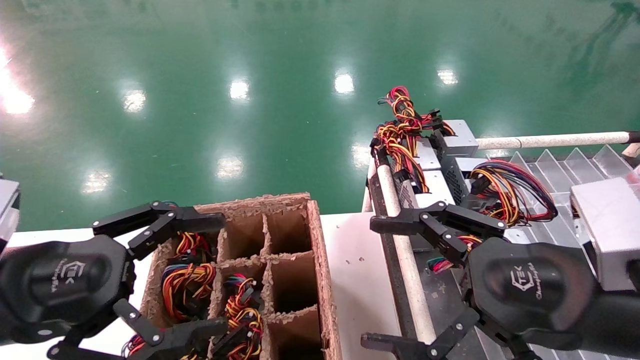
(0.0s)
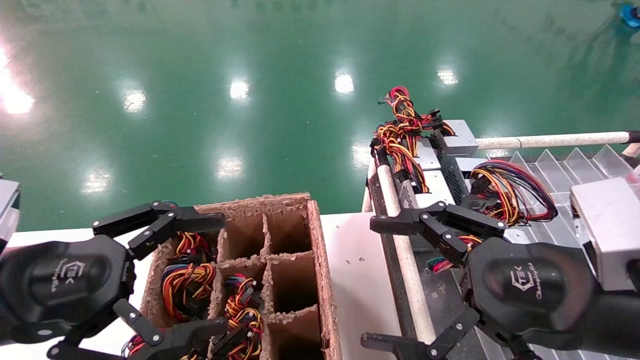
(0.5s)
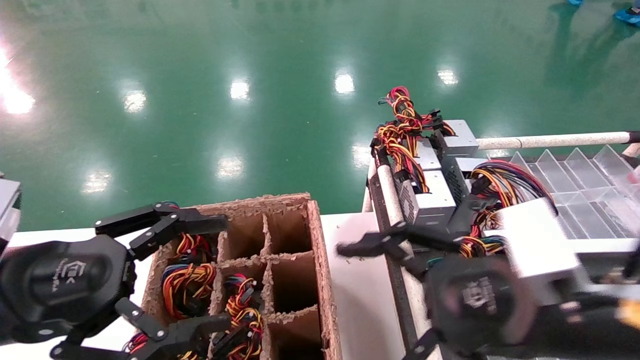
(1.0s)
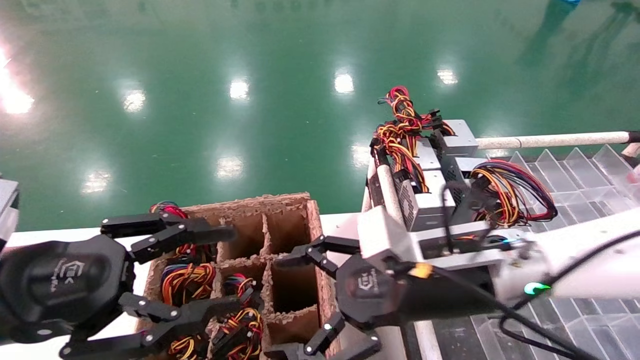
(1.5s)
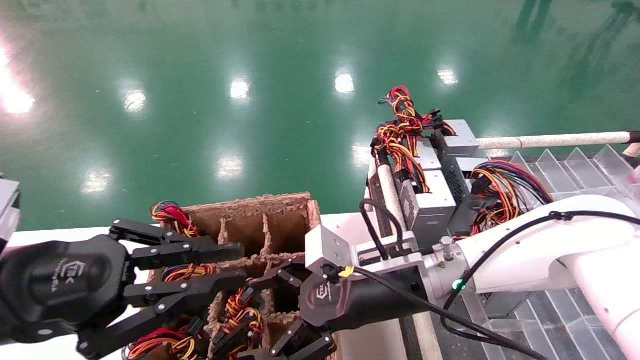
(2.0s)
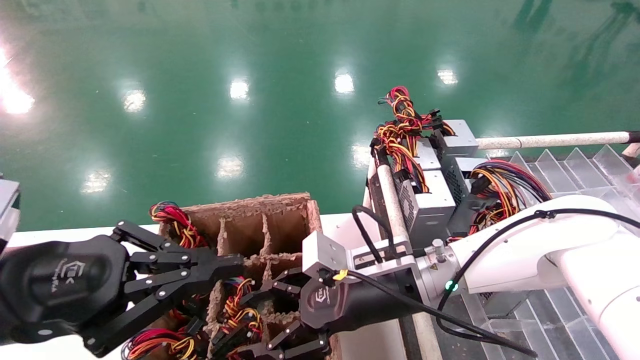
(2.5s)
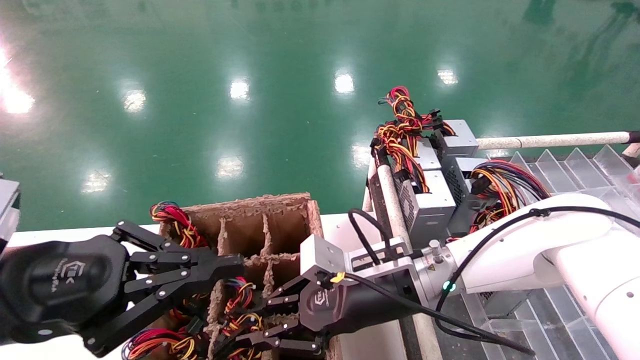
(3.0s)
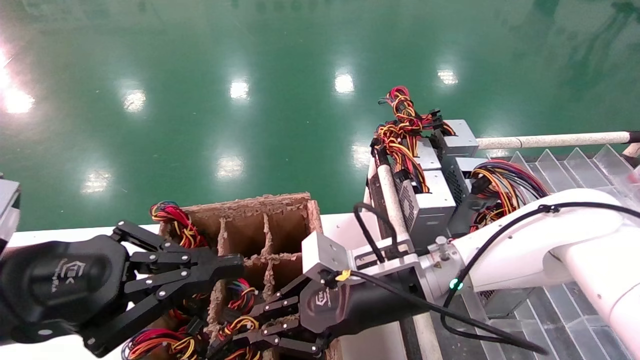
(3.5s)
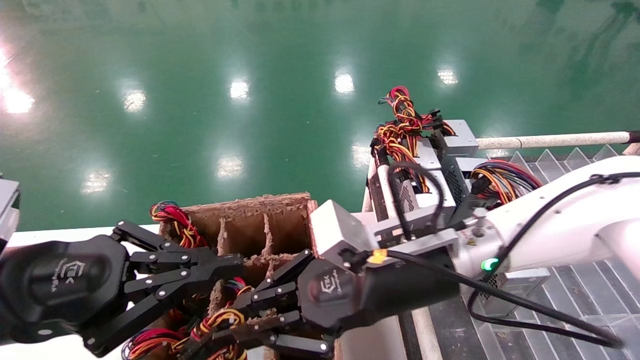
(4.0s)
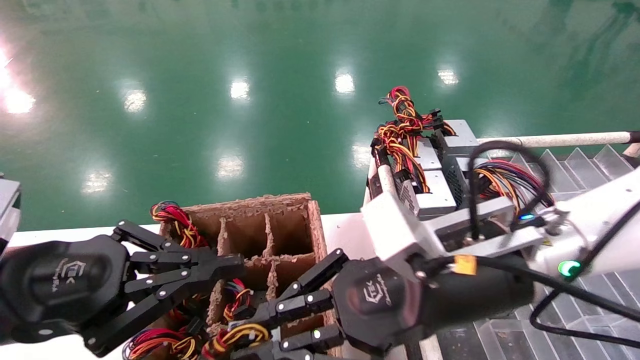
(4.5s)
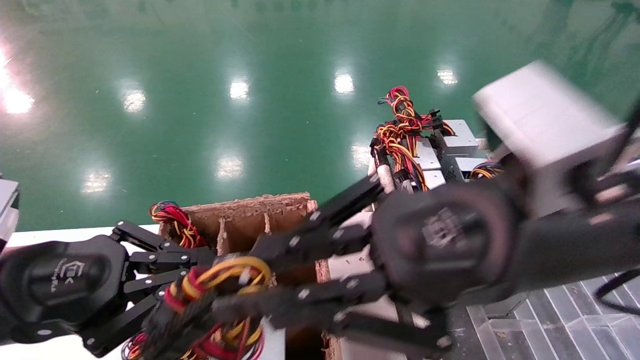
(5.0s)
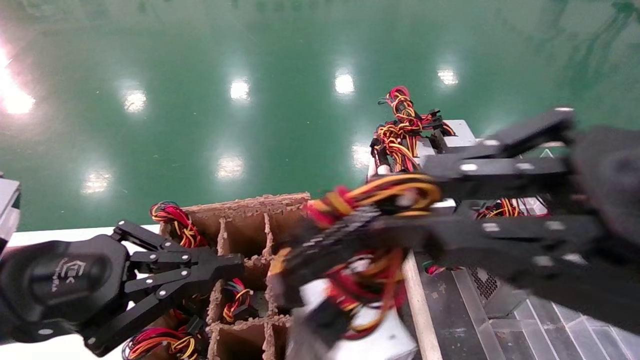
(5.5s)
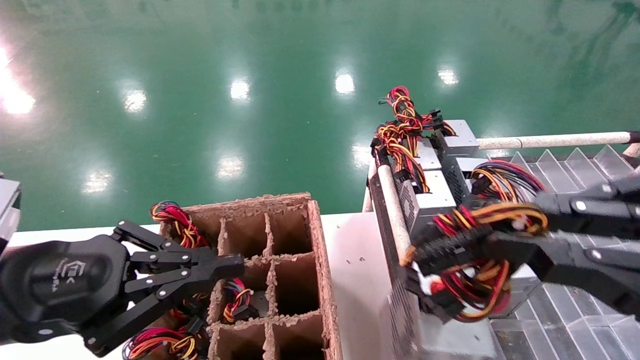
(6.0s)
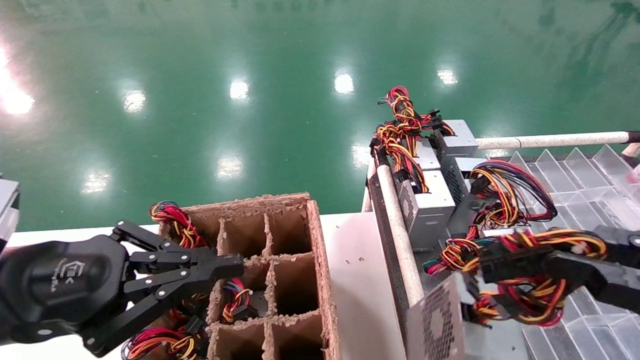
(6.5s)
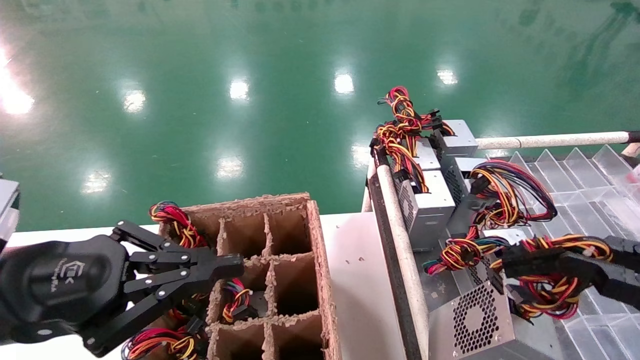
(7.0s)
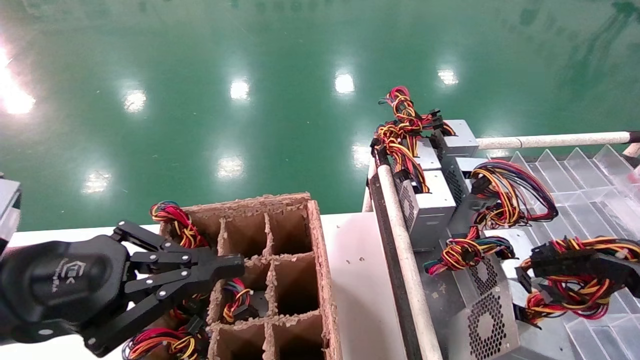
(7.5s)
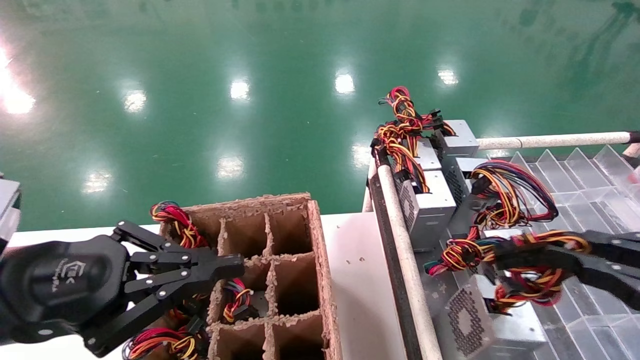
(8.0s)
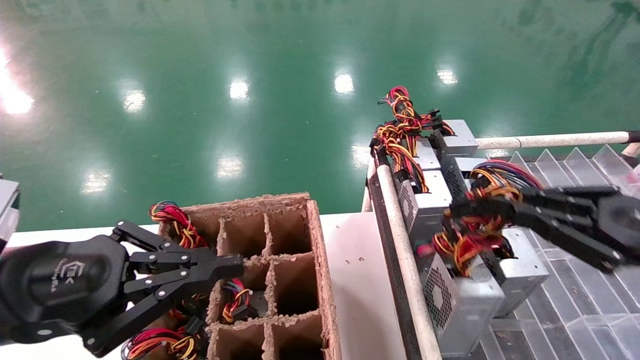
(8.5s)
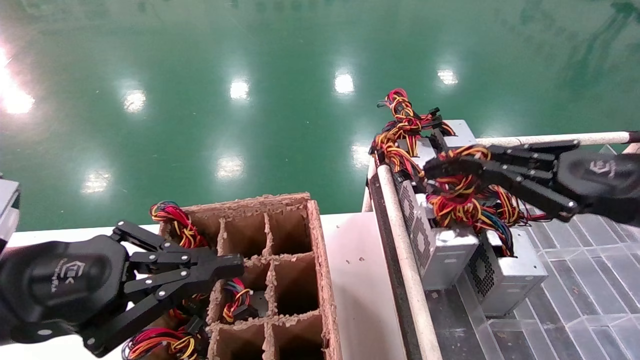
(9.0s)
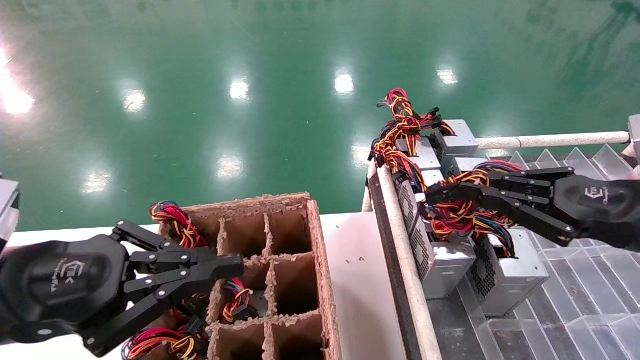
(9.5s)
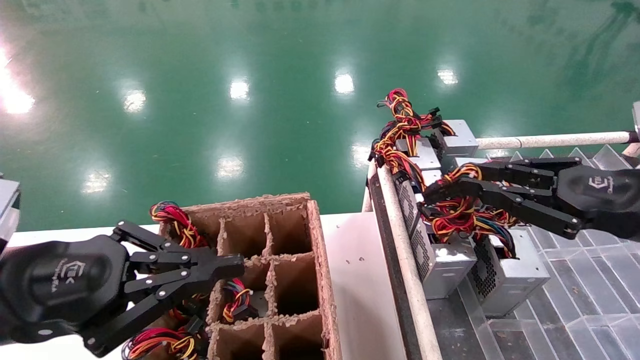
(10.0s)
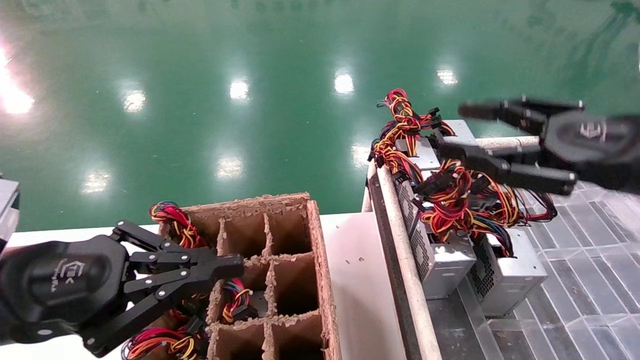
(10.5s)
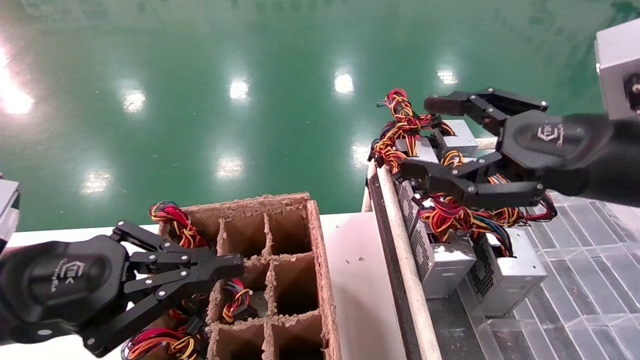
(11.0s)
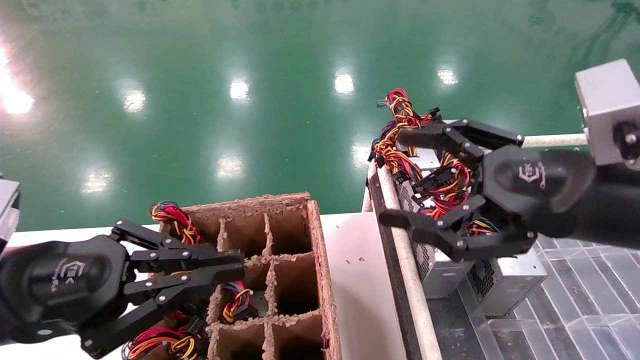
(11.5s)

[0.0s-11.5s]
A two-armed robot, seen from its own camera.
Step, 1.5s to 3.0s: Grab the main unit power supply from the containment box.
Step, 3.5s to 10.0s: Place the main unit power supply in the designated area.
0.0s to 2.0s: The left gripper closes its fingers; the right gripper is displaced to the left, forward and downward by some 20 cm.
2.0s to 4.0s: The right gripper goes approximately 5 cm upward, and closes up.
4.0s to 6.0s: The right gripper heads to the right, backward and upward, covering about 30 cm.
6.0s to 7.5s: The right gripper moves to the right and downward, roughly 10 cm.
7.5s to 9.5s: The right gripper is displaced forward by approximately 15 cm.
9.5s to 11.5s: The right gripper heads to the left, covering about 10 cm, and opens.

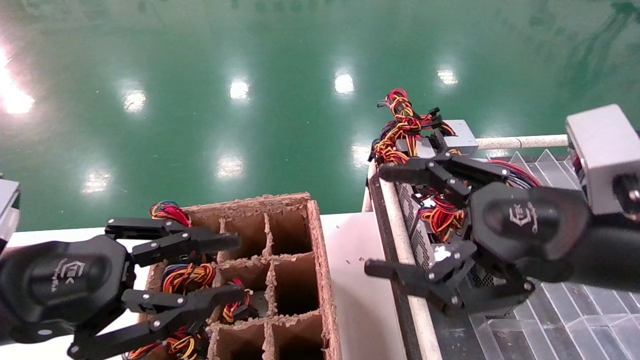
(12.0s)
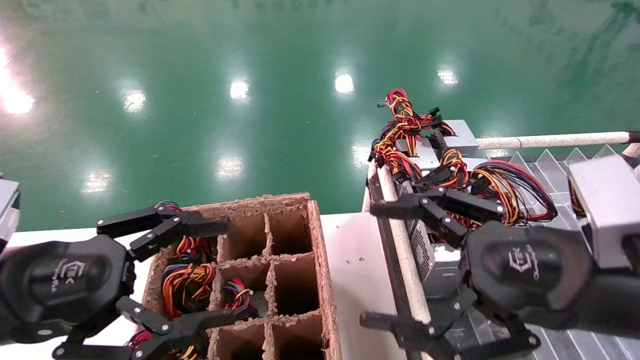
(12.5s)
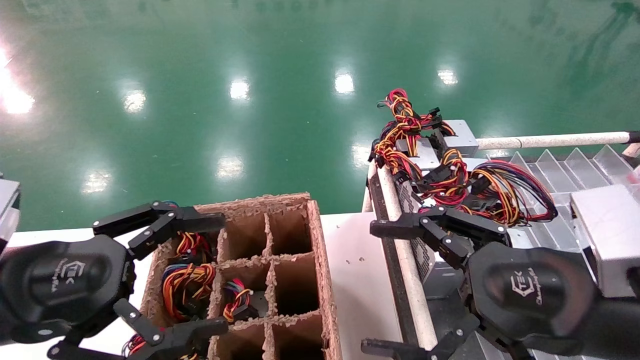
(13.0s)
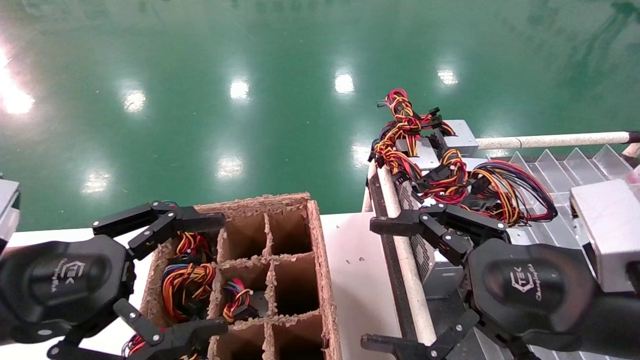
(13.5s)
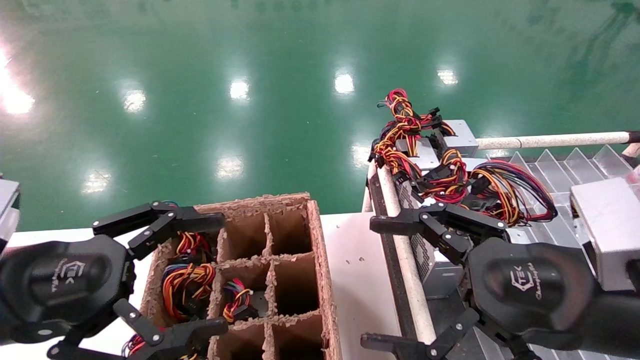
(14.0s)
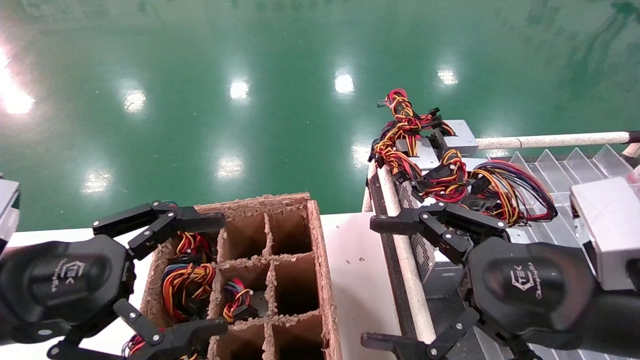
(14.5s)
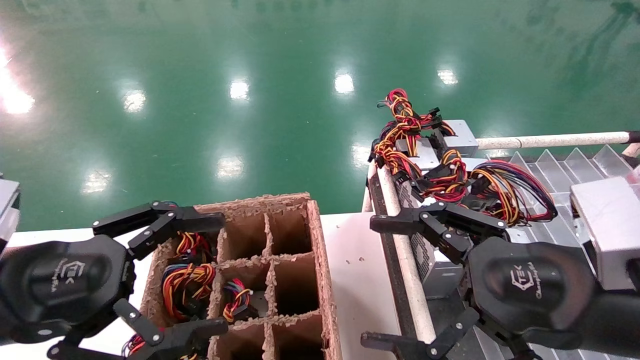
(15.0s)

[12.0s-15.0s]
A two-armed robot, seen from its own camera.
12.0s to 13.5s: The left gripper opens up.
13.5s to 15.0s: The two grippers keep their place.
